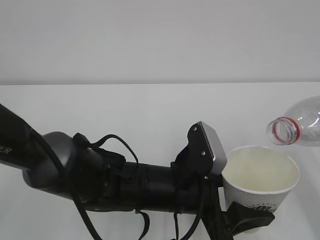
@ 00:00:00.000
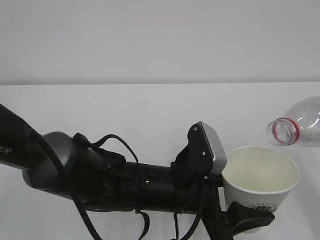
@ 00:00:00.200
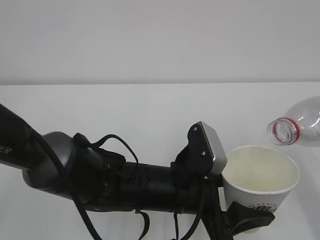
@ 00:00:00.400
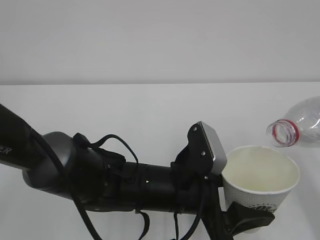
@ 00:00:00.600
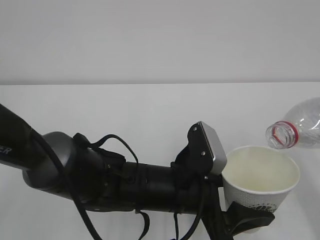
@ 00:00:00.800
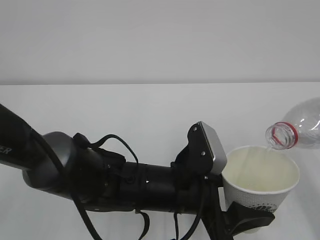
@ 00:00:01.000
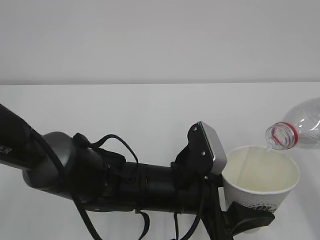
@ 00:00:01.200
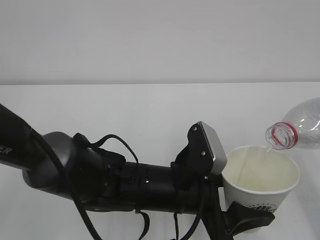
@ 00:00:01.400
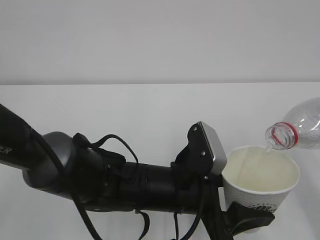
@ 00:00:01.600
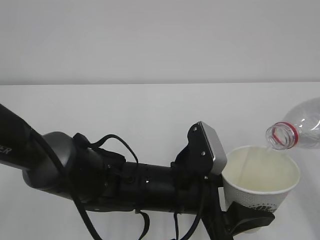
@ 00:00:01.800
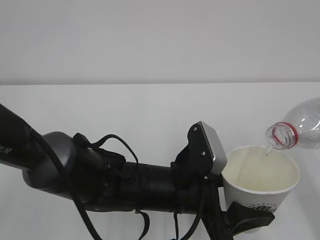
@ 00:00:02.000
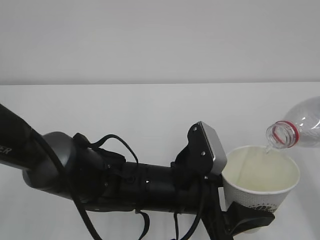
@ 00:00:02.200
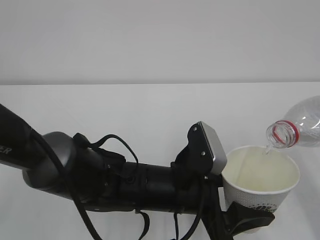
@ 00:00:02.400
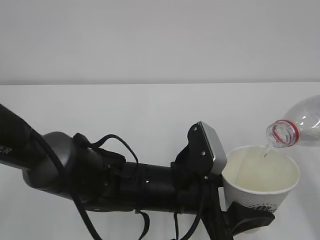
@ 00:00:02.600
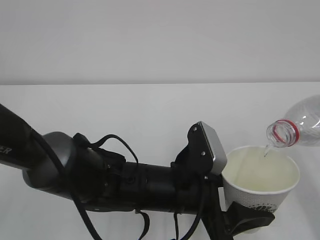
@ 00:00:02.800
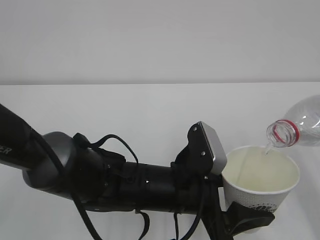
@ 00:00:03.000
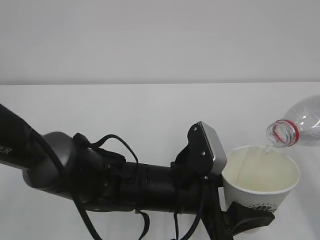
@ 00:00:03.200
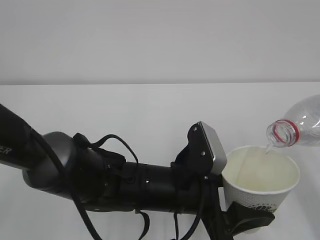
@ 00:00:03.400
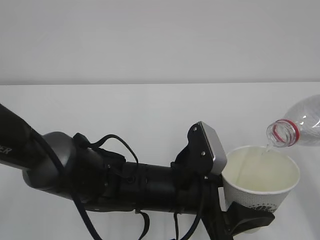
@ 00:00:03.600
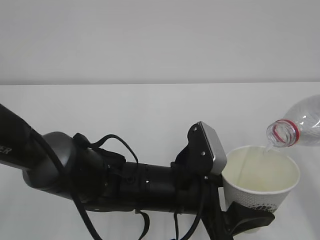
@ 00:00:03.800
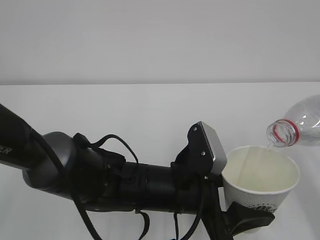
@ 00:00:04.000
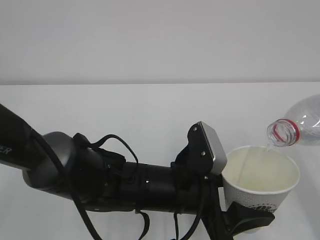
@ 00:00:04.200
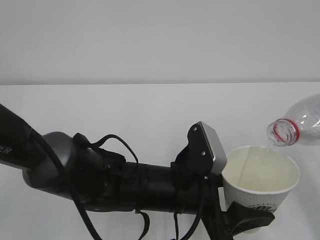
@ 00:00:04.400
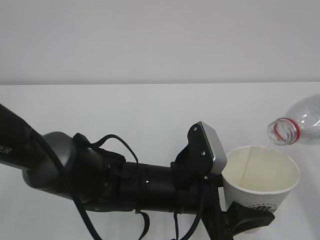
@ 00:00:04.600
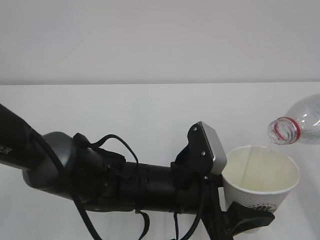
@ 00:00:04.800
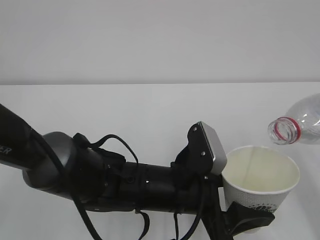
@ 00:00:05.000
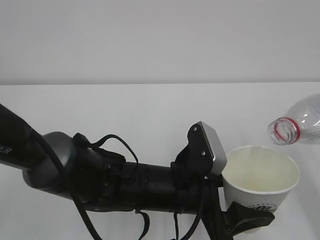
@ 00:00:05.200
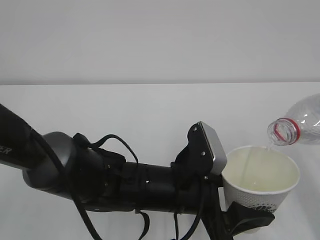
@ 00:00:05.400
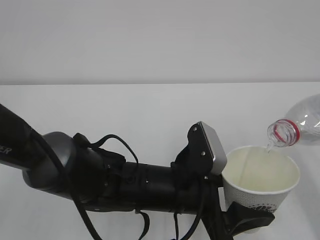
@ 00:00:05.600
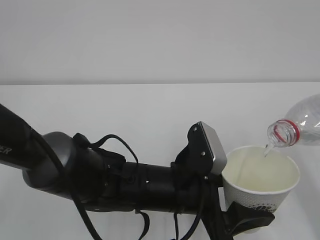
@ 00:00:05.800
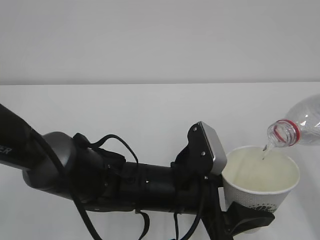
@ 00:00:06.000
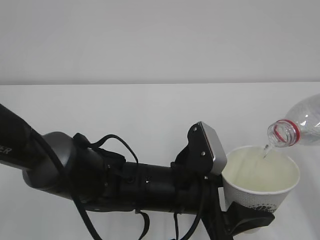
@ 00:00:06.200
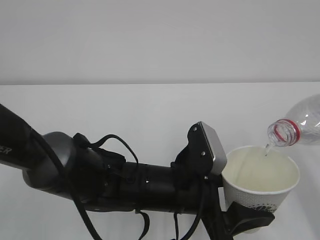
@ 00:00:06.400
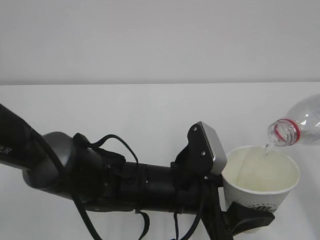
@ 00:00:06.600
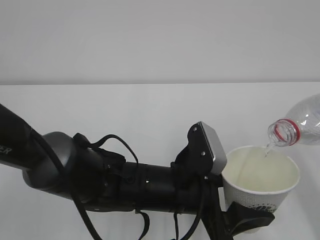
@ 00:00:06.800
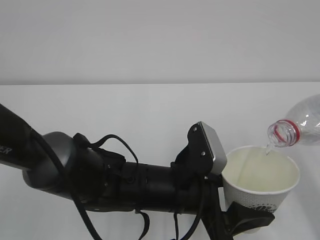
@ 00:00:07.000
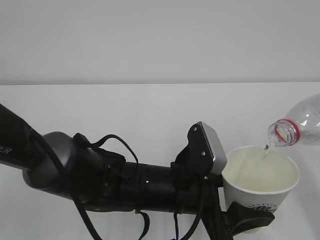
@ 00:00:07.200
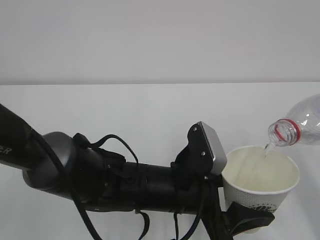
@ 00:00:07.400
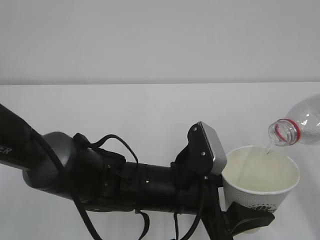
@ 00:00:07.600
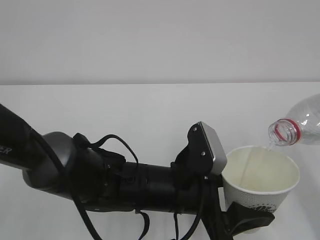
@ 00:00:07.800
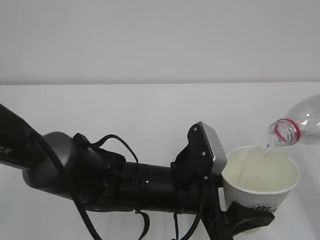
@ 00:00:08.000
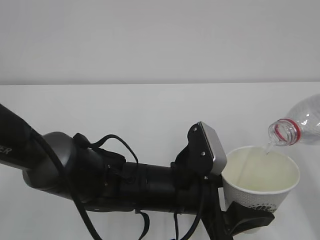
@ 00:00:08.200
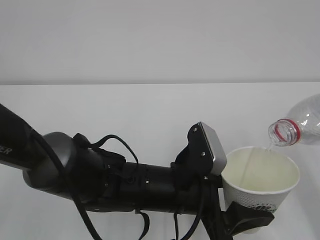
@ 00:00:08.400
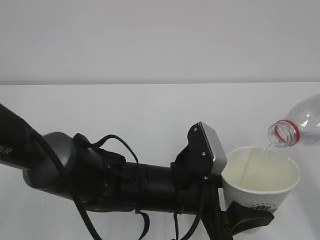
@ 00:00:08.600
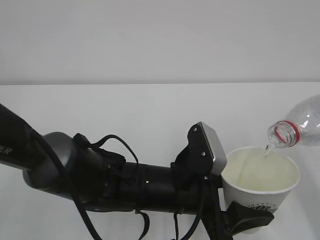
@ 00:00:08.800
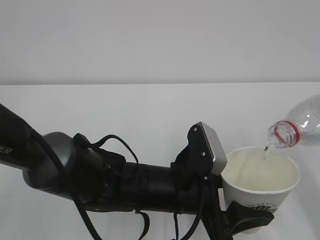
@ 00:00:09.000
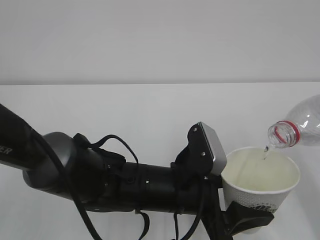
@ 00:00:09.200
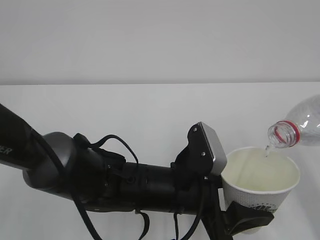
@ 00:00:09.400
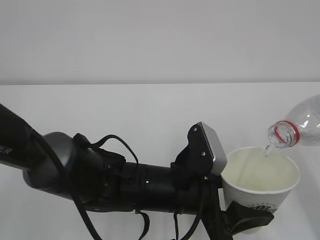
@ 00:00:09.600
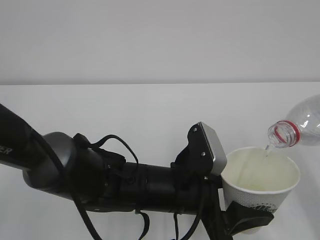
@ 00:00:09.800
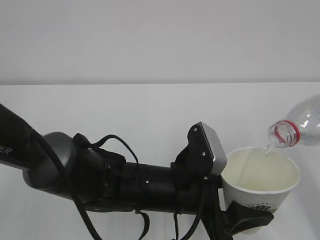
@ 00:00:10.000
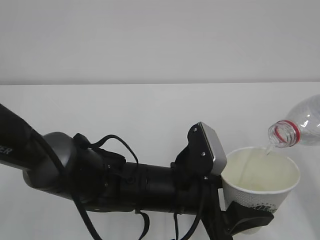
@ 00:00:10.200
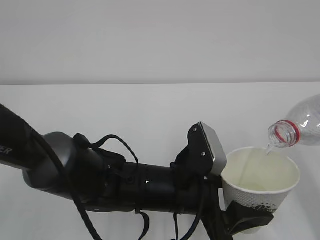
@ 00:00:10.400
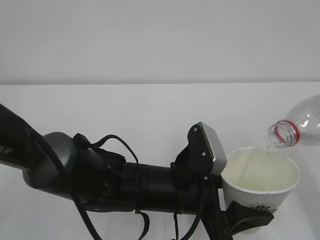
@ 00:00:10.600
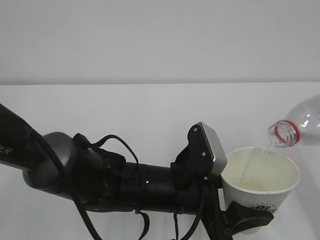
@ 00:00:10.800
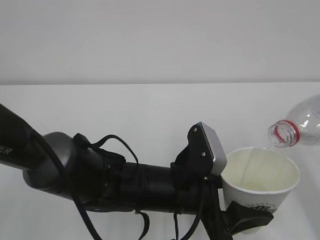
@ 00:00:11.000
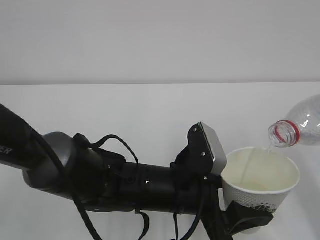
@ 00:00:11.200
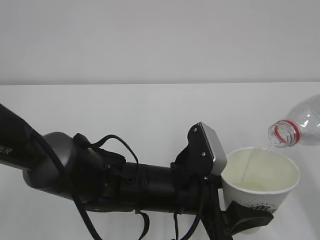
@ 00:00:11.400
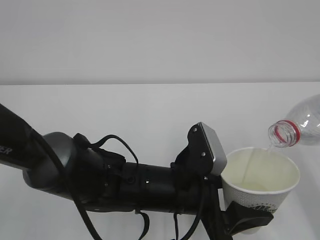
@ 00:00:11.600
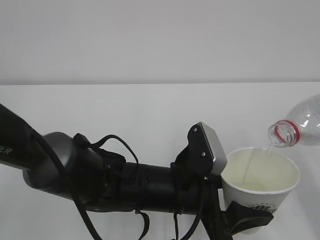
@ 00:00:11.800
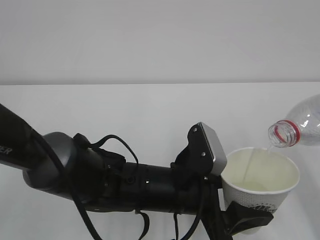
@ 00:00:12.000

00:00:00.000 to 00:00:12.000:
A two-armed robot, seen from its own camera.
00:00:00.000 to 00:00:04.400: Neither gripper changes place.
00:00:04.400 to 00:00:12.000: Both grippers stay put.

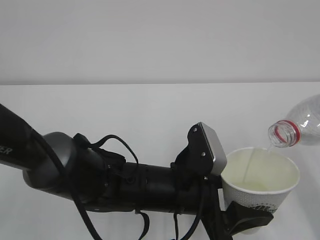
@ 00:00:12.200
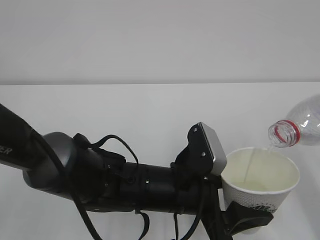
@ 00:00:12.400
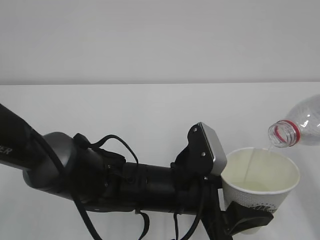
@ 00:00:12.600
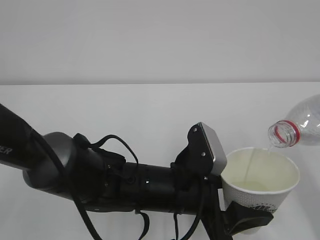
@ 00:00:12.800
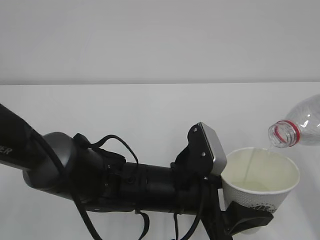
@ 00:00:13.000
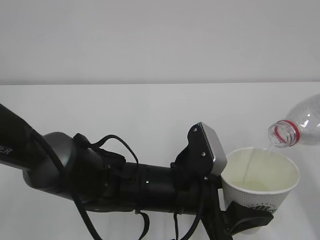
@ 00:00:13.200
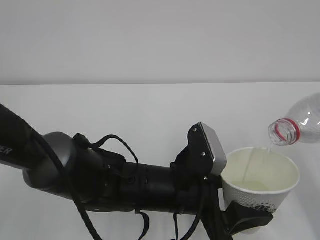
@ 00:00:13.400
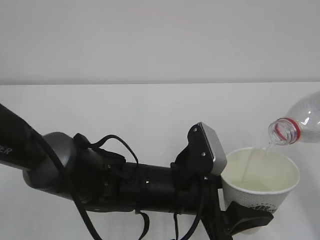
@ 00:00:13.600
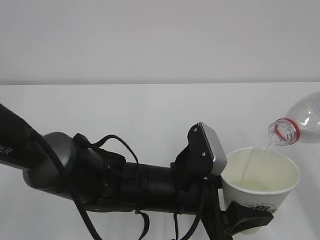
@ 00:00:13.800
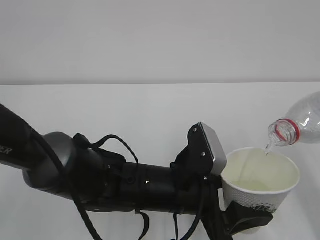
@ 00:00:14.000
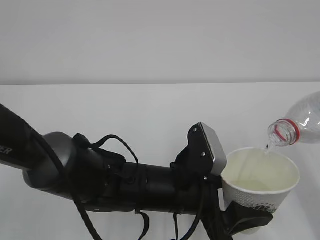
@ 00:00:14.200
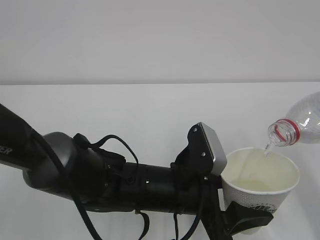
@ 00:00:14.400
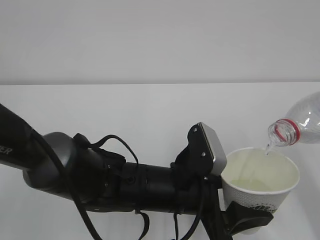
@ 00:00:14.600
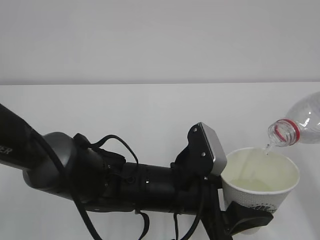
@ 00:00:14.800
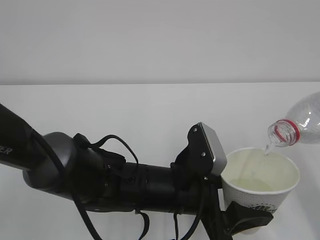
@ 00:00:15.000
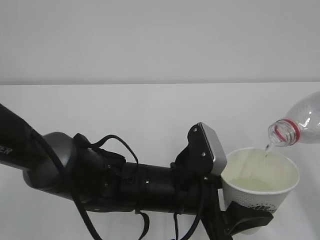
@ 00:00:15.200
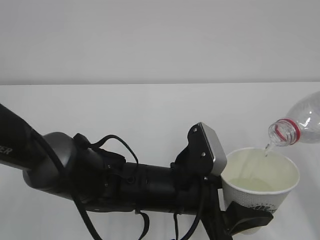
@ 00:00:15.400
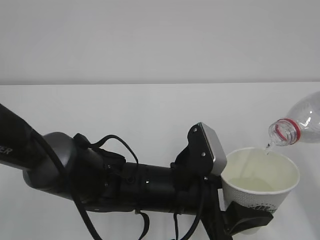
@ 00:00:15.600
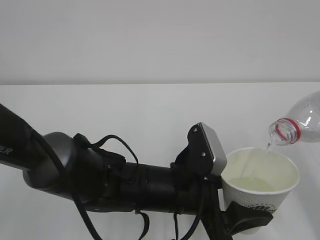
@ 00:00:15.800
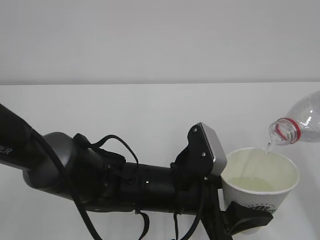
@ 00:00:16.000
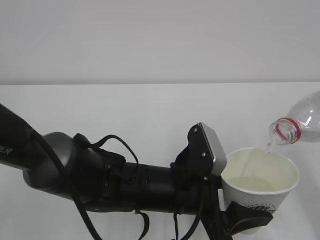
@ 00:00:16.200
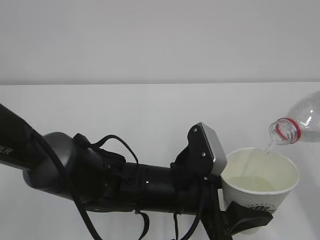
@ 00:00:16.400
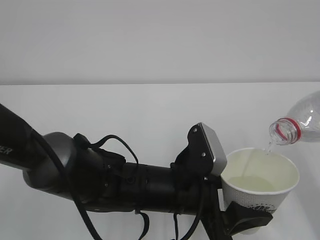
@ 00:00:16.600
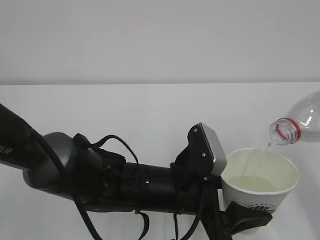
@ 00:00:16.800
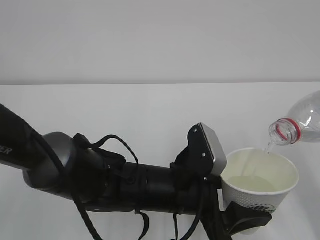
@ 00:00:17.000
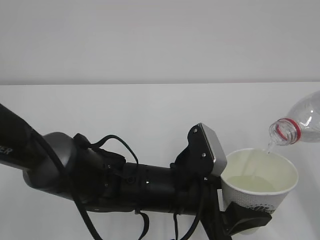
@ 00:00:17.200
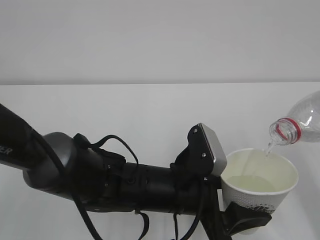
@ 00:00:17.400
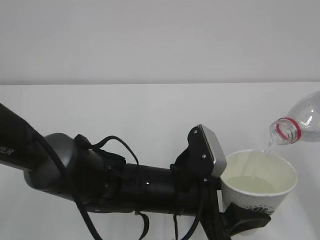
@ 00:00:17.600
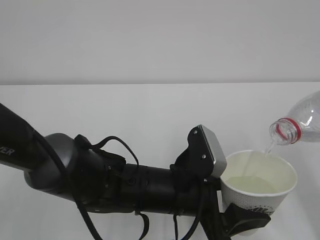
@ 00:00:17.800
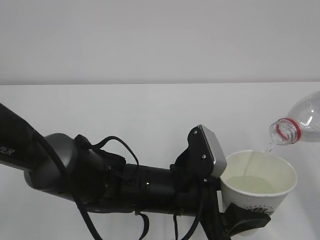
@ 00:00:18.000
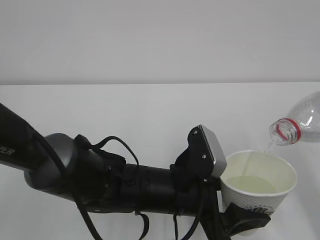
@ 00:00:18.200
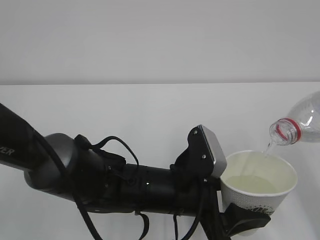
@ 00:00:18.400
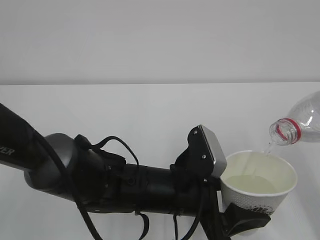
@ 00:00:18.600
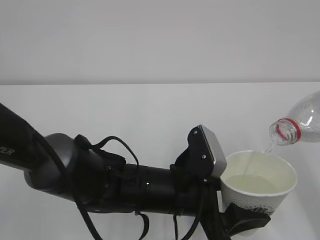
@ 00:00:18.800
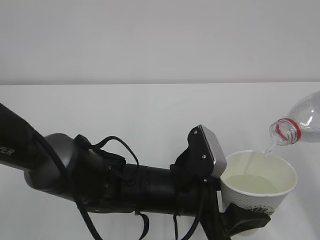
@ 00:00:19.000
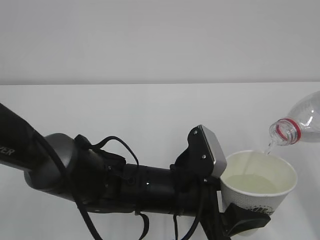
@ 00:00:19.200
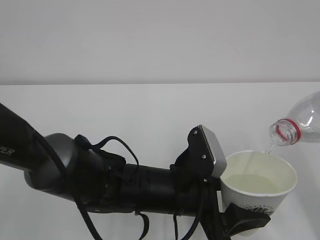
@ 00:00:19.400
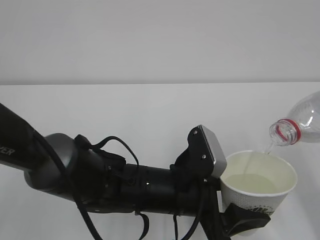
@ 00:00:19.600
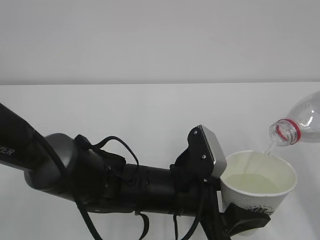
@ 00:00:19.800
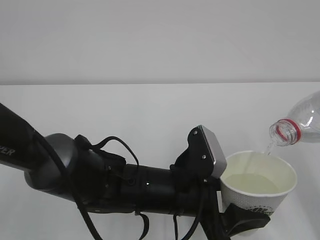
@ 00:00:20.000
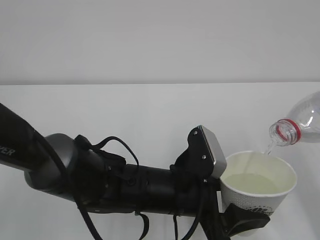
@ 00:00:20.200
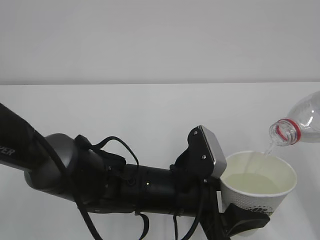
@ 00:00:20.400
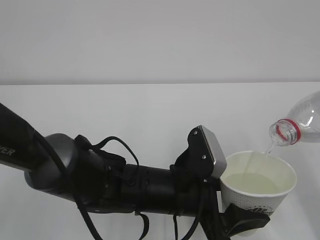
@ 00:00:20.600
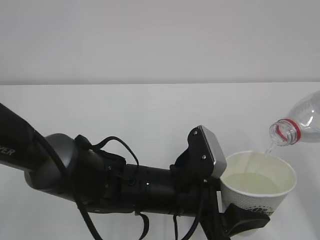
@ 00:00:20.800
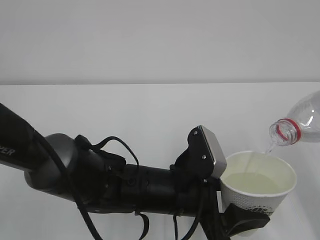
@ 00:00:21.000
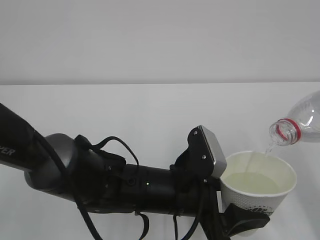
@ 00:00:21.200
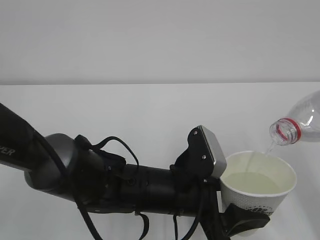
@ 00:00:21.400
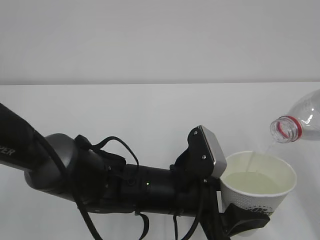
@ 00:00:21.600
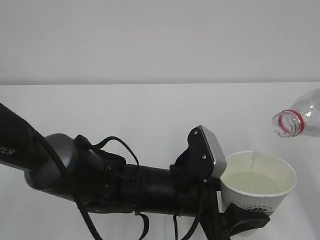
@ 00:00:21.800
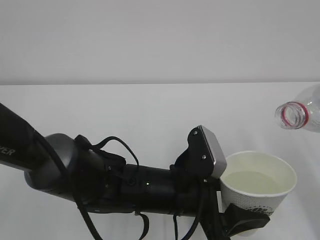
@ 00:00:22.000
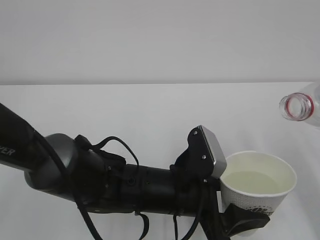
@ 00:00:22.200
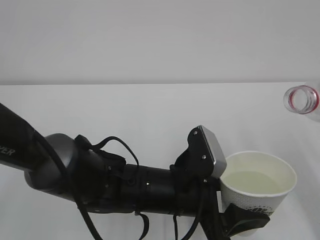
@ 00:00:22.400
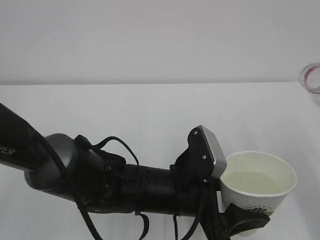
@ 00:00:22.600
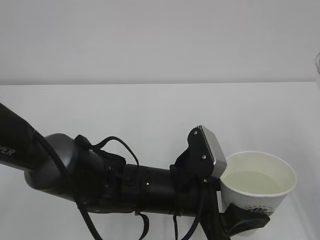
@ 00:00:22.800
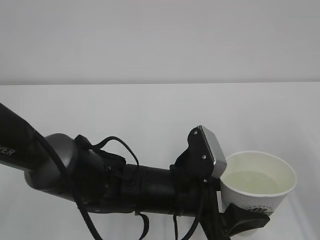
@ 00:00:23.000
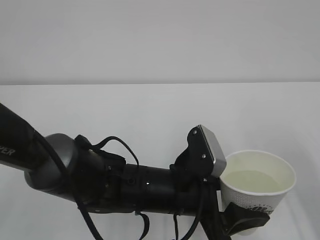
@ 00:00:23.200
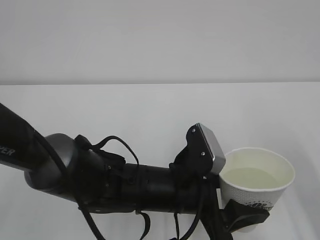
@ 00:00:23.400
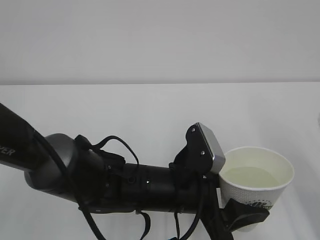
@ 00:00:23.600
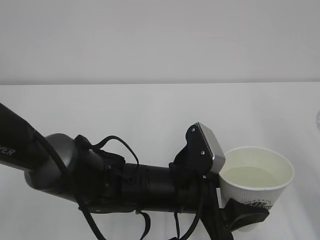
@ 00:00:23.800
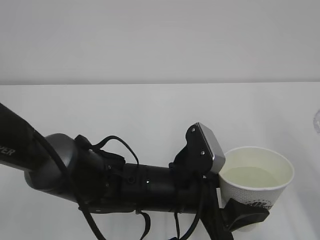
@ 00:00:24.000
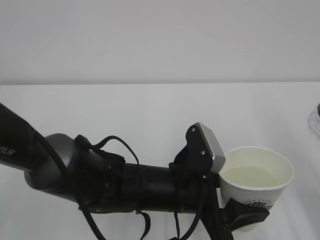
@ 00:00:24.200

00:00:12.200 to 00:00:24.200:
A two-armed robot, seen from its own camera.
00:00:12.200 to 00:00:21.200: Both grippers stay put.
